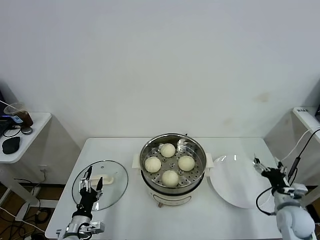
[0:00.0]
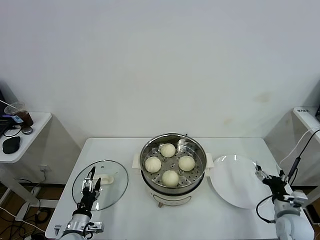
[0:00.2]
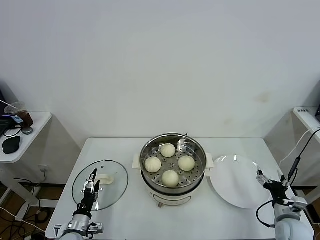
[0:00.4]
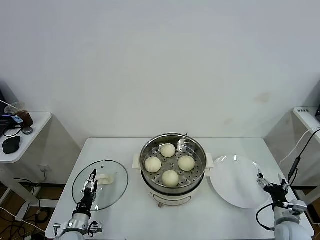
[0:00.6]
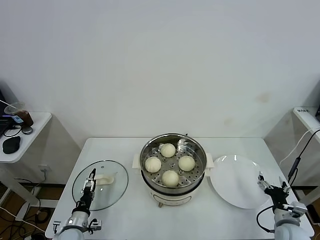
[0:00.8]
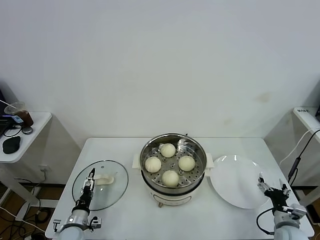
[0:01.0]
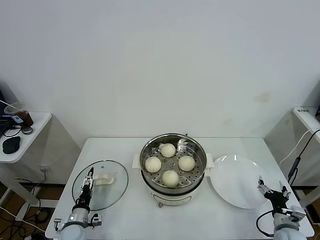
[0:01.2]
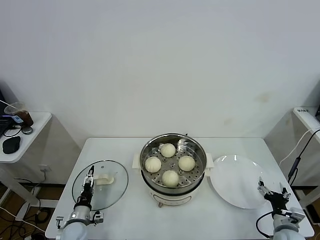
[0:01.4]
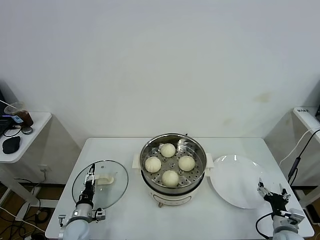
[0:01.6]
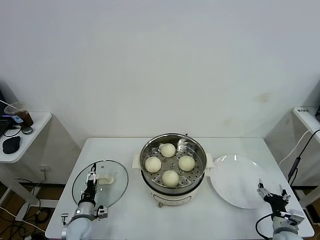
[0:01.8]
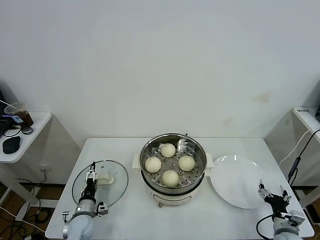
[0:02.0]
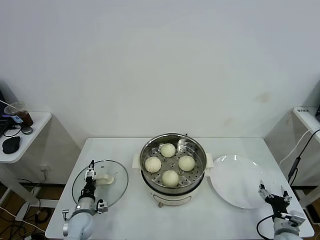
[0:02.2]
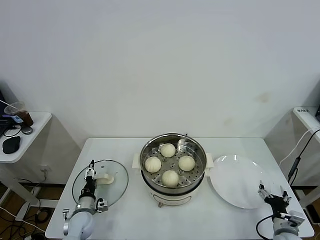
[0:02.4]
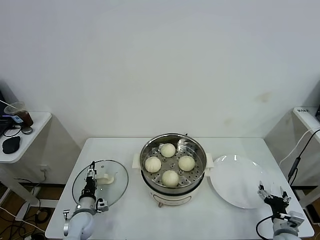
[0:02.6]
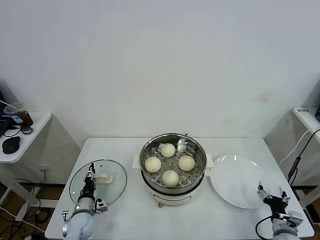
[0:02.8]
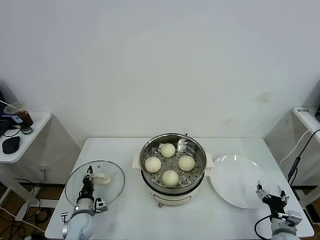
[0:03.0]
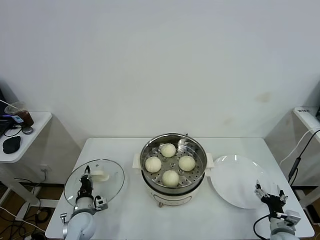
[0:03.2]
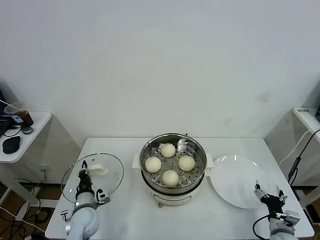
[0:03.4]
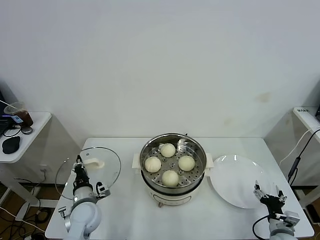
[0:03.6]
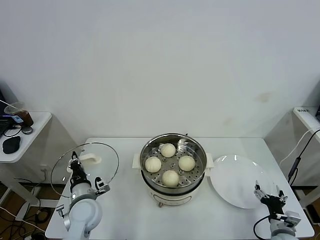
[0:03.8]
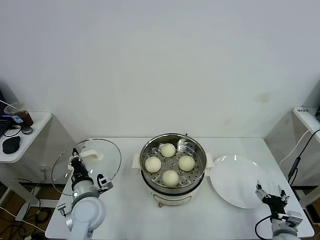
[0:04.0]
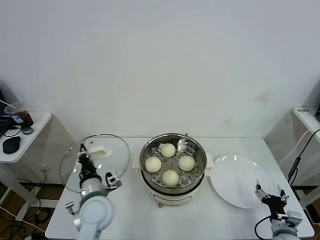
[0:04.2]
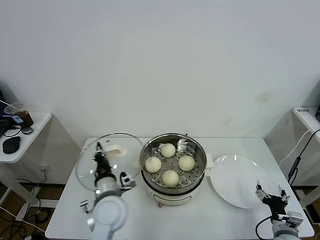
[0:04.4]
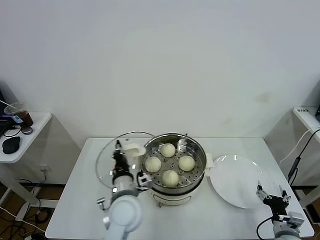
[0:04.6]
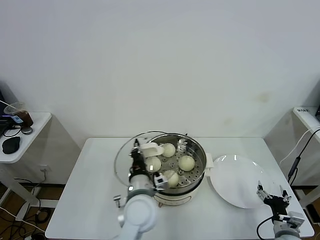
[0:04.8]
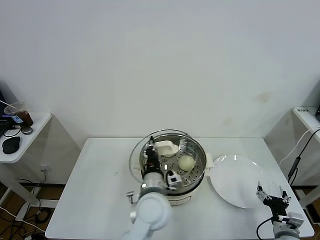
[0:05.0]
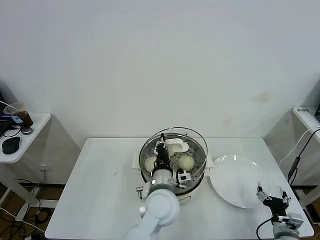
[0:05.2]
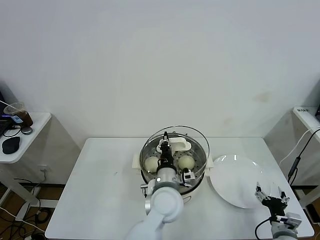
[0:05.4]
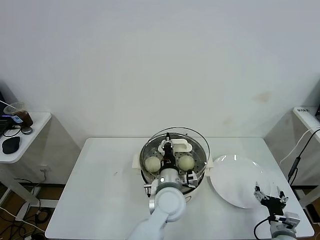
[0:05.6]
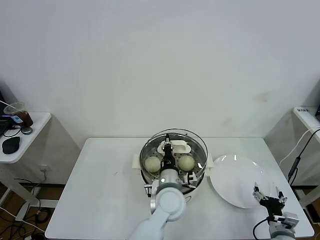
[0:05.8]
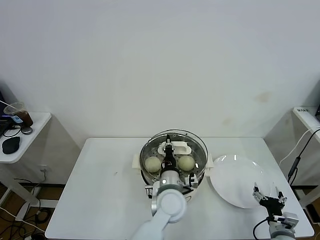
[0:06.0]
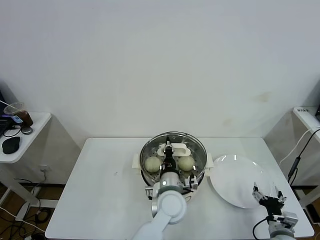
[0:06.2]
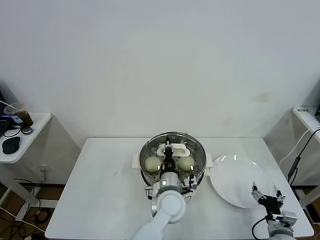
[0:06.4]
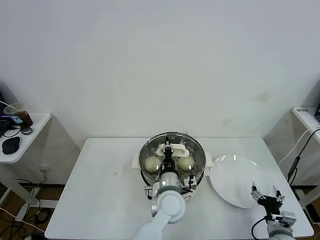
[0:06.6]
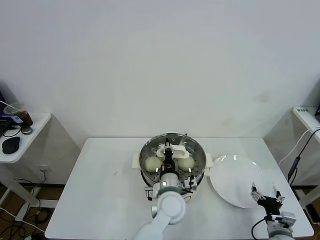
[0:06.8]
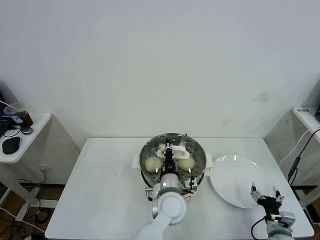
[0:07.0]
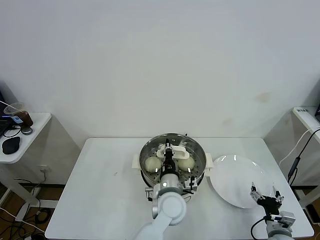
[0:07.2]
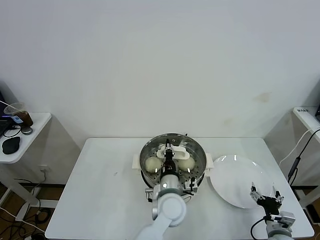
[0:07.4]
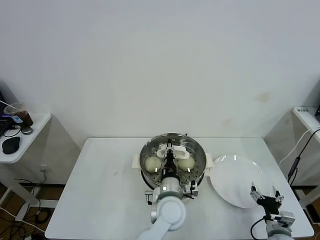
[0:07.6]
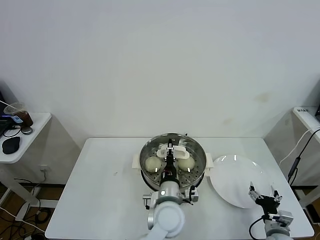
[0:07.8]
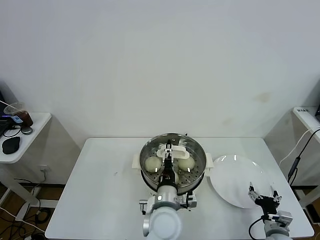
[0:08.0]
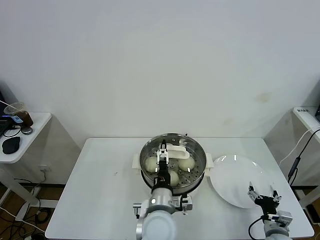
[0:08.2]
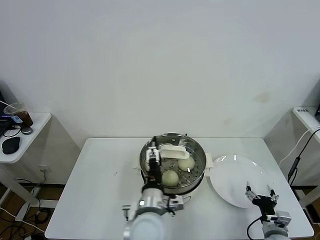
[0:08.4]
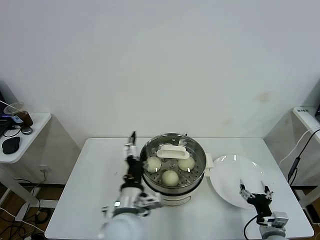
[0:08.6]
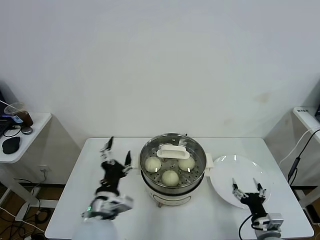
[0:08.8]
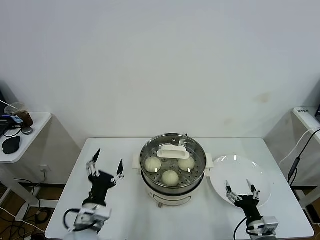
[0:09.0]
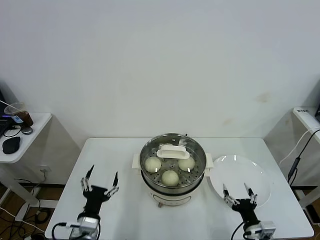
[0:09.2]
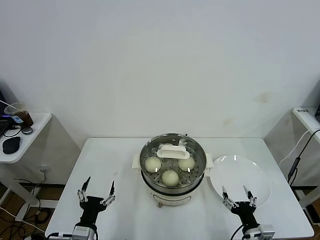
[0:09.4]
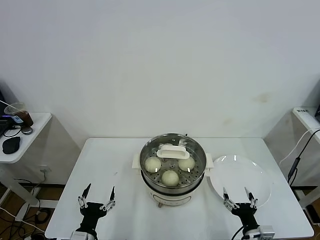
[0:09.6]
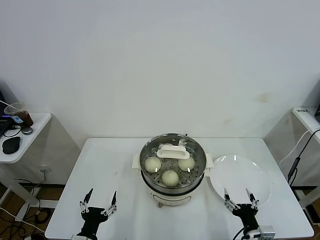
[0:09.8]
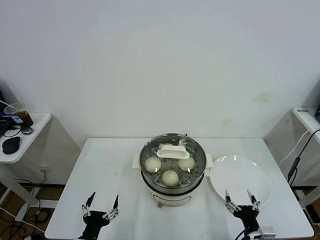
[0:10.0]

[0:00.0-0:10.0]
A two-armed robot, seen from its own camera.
Task of the whole recording: take steamed baozi put them in steamer.
Step, 0:00.0 to 0:03.2: Grasp the pot lid with left gripper.
Step, 0:03.4 to 0:07.8: Place the pot lid on the steamer with left gripper.
0:00.0 to 0:01.4: The left gripper moves downward and forward, roughly 10 cm, while the right gripper moves downward and backward, some 10 cm.
0:01.4 to 0:02.8: The left gripper closes up.
0:02.8 to 0:04.2: The left gripper shifts some 20 cm upward and to the right, and closes.
0:04.2 to 0:05.8: The left gripper goes some 25 cm to the right.
0:05.8 to 0:07.2: There are only small adjustments of the grippers.
0:07.2 to 0:08.6: The left gripper heads to the left, backward and upward, covering roughly 15 cm, and opens.
0:08.6 to 0:10.0: The right gripper travels to the left by approximately 5 cm. The left gripper is displaced to the left, downward and backward by some 25 cm.
